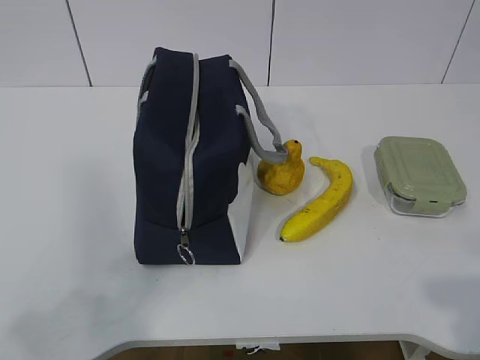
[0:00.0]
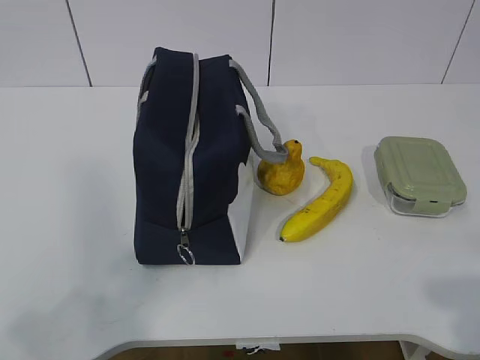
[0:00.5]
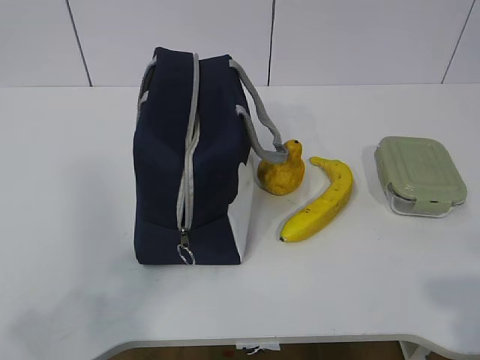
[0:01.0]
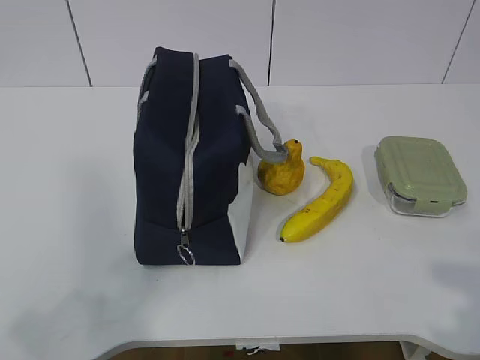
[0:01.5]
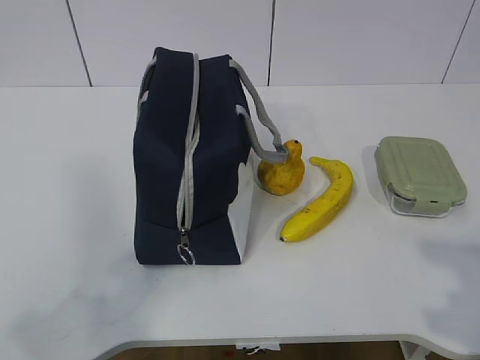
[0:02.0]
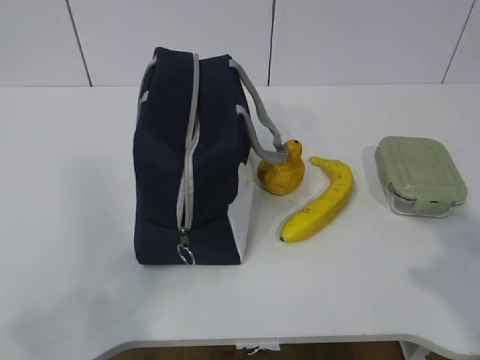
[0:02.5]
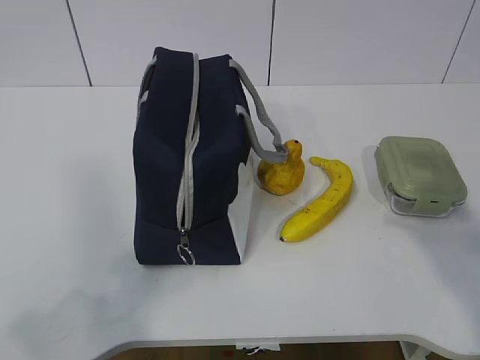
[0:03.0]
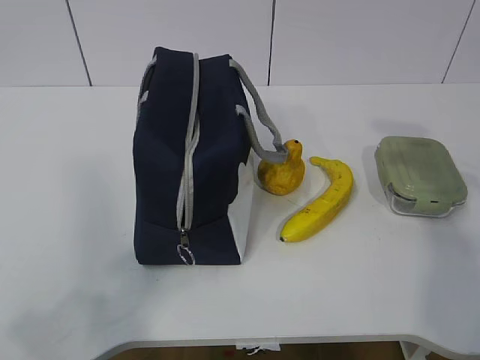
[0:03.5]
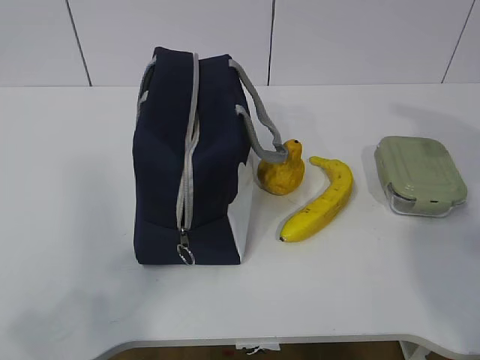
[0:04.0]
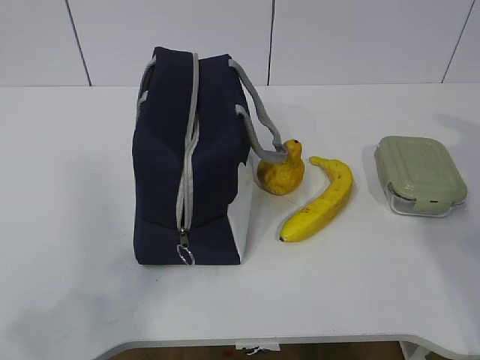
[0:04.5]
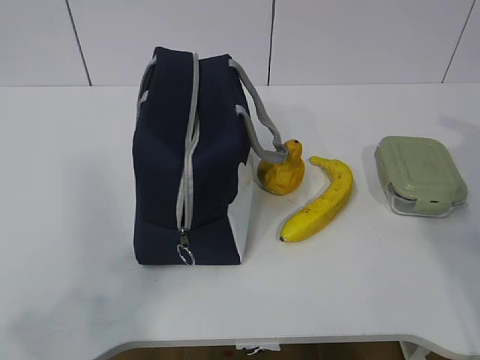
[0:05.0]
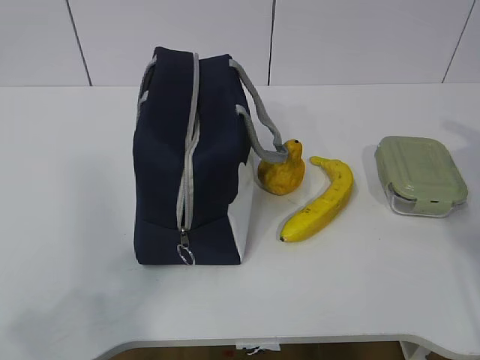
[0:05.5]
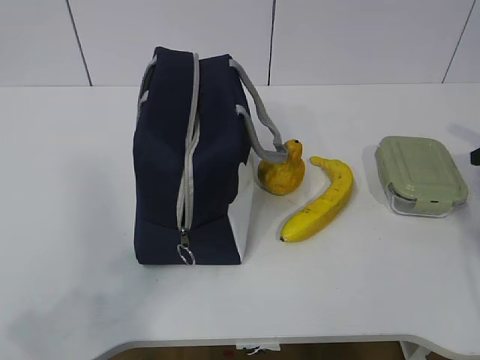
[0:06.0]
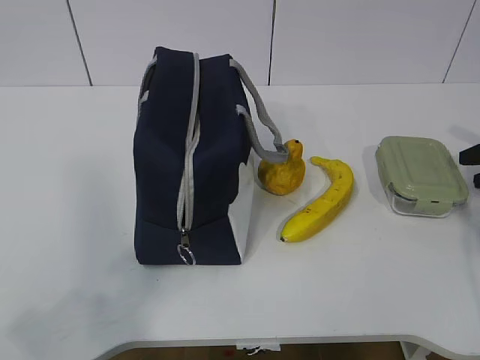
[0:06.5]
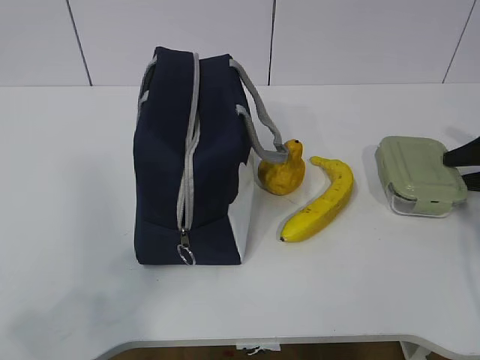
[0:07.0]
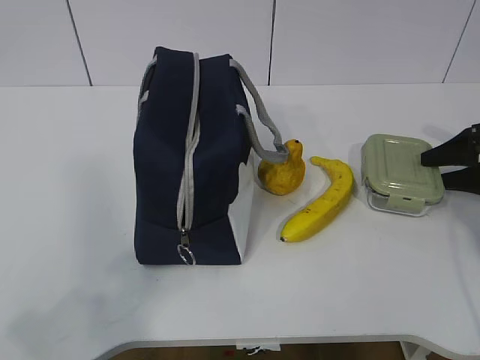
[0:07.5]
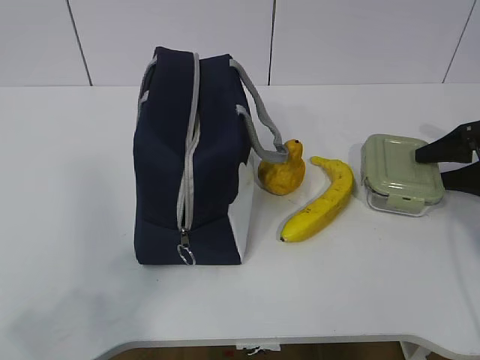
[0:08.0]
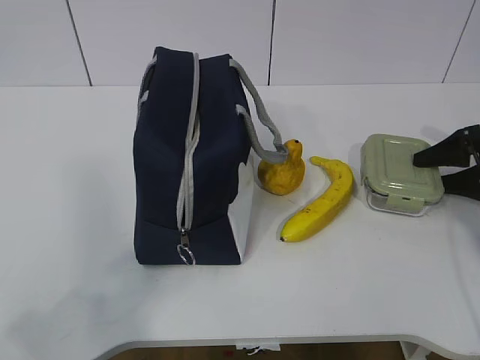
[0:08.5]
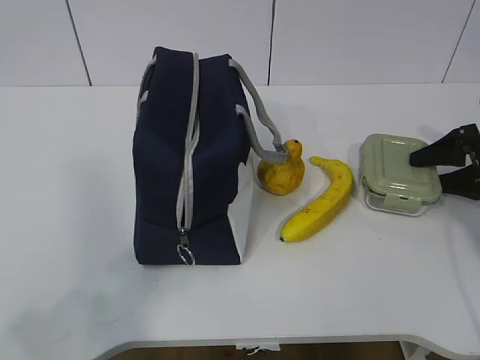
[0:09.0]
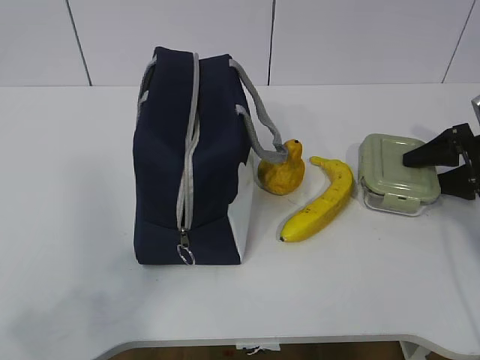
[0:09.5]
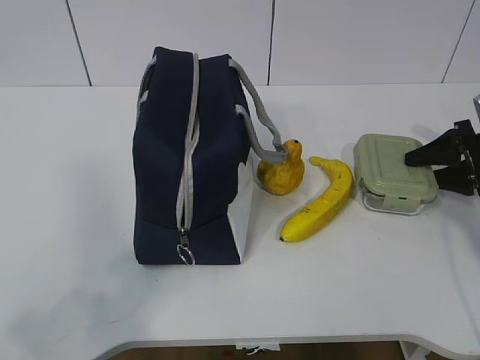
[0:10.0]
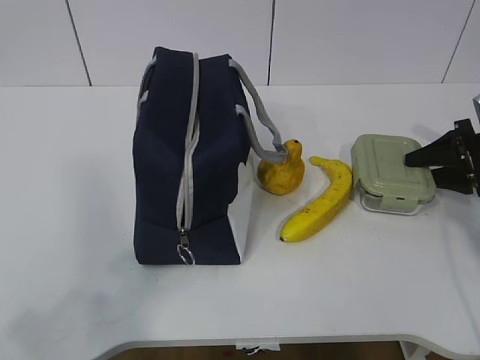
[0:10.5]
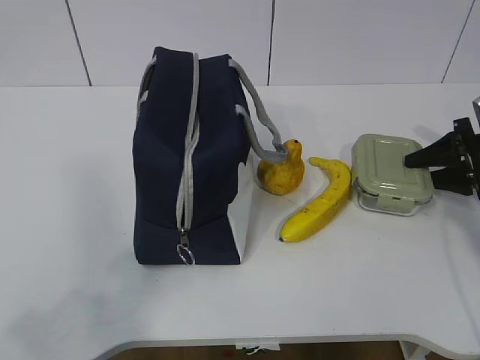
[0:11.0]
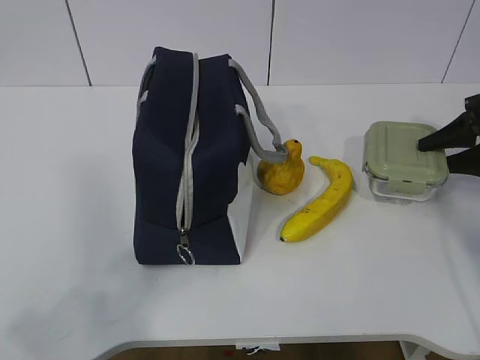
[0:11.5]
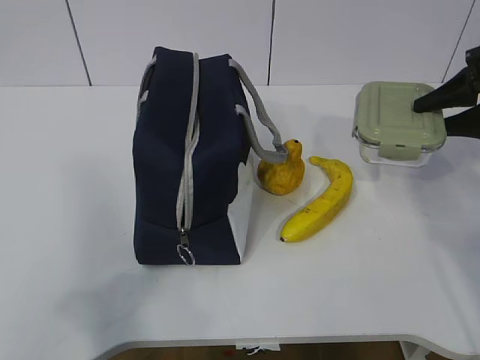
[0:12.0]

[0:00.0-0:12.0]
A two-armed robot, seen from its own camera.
Step, 0:00.0 to 0:07.5: Grasp the box with the right gripper.
0:02.0 to 0:04.0: The right gripper travels forward by roughly 25 cm.
0:04.0 to 0:06.0: The right gripper moves downward, forward and to the right, approximately 20 cm.
0:06.0 to 0:08.0: The right gripper changes place by some 5 cm.
0:08.0 to 0:10.0: There are only small adjustments of the grippers.
0:10.0 to 0:12.0: The right gripper travels upward by about 10 cm.

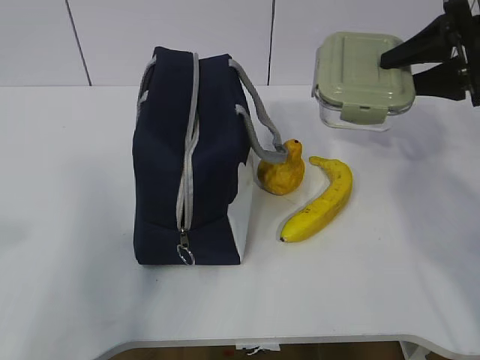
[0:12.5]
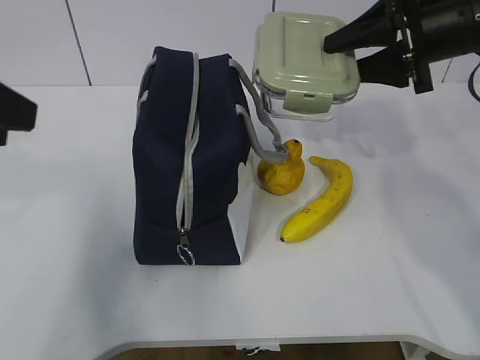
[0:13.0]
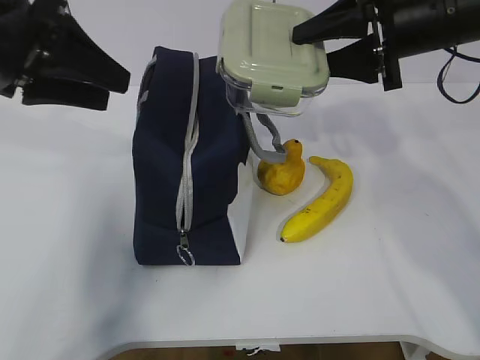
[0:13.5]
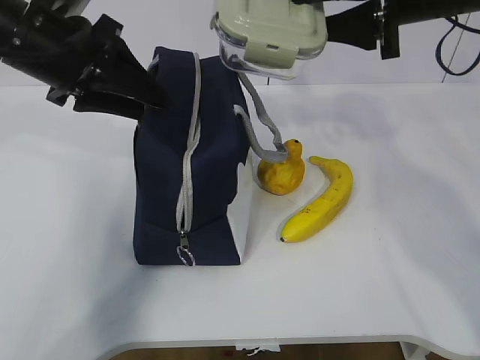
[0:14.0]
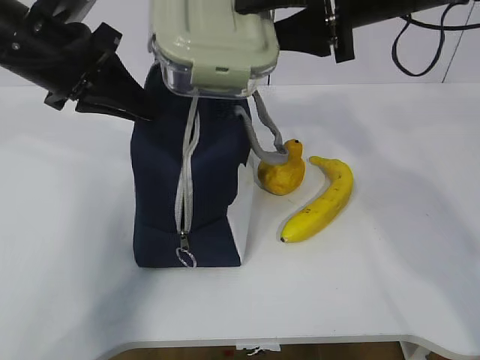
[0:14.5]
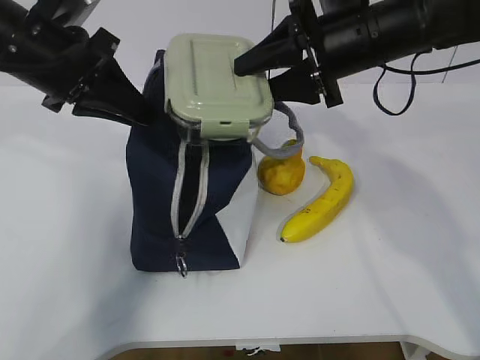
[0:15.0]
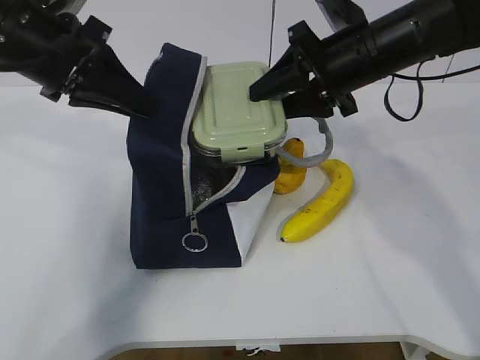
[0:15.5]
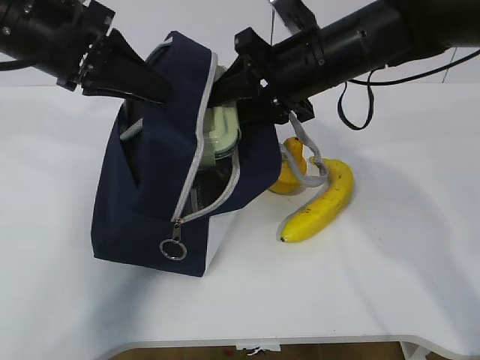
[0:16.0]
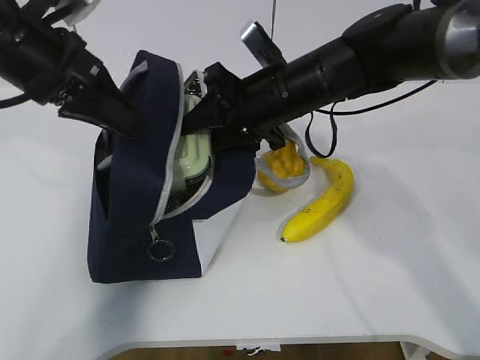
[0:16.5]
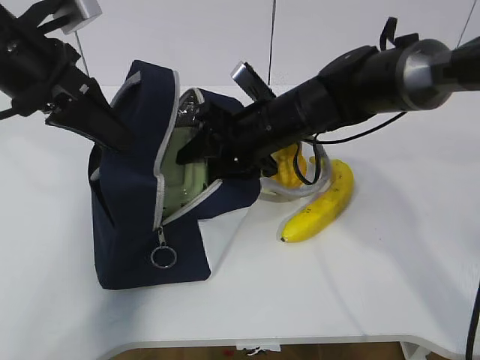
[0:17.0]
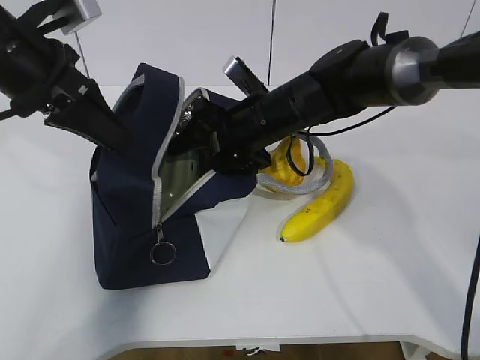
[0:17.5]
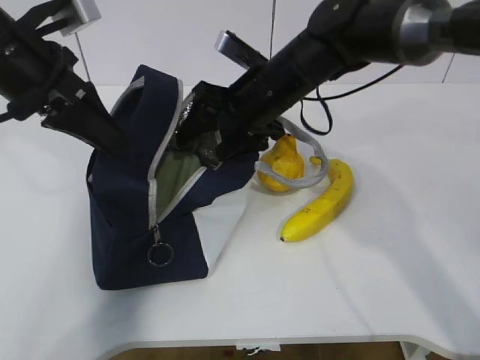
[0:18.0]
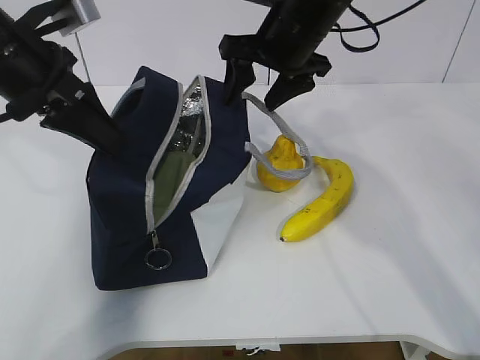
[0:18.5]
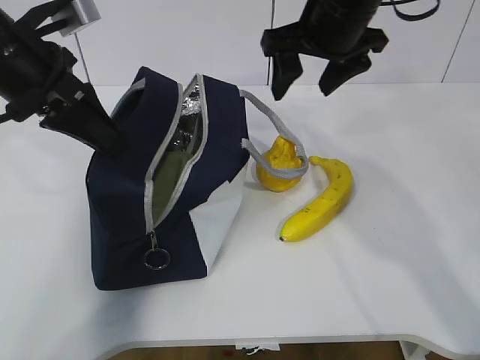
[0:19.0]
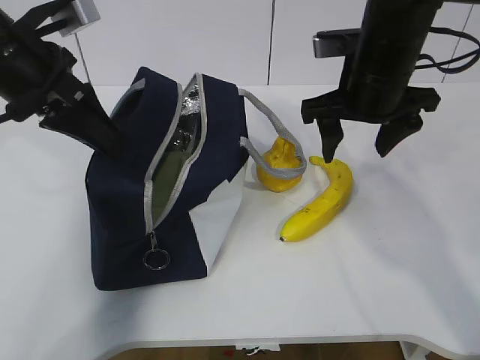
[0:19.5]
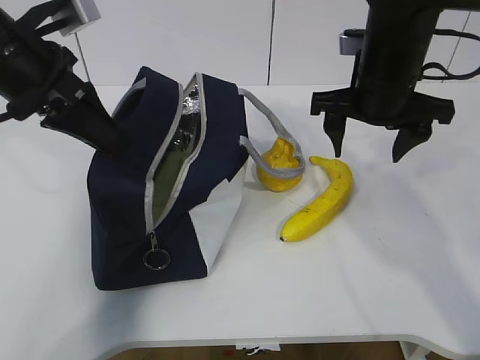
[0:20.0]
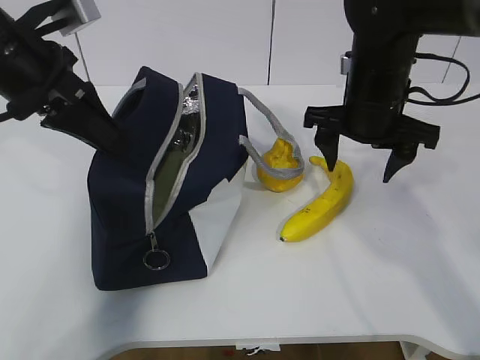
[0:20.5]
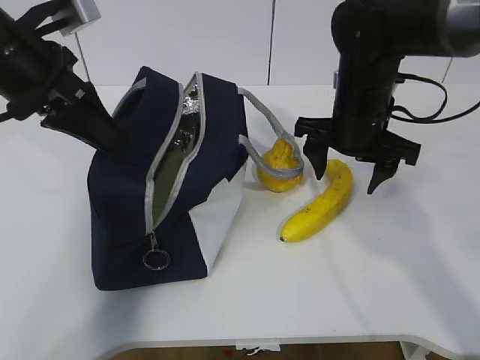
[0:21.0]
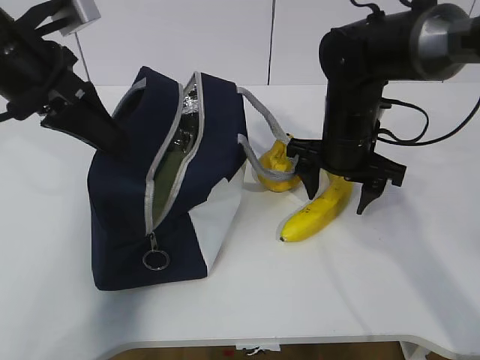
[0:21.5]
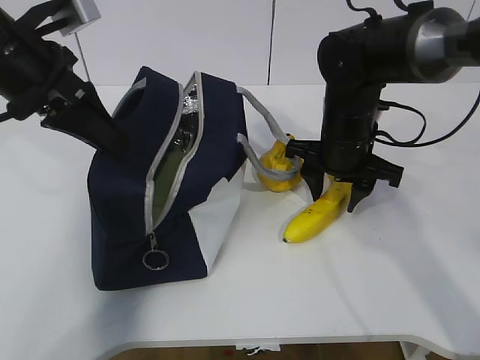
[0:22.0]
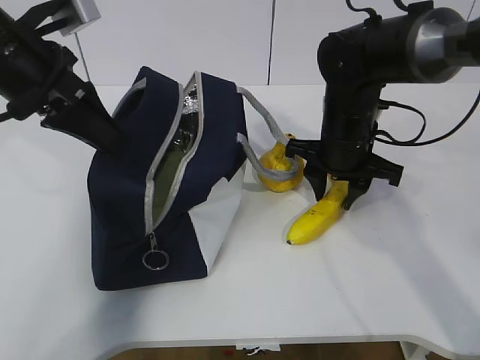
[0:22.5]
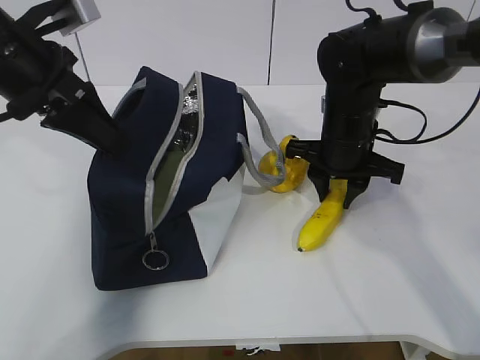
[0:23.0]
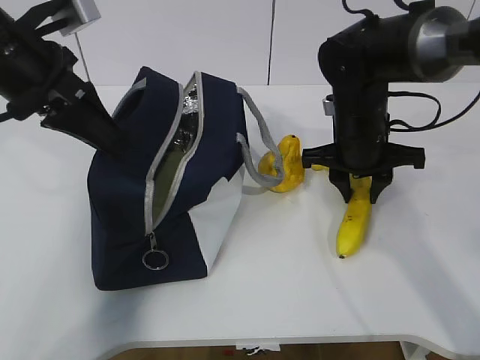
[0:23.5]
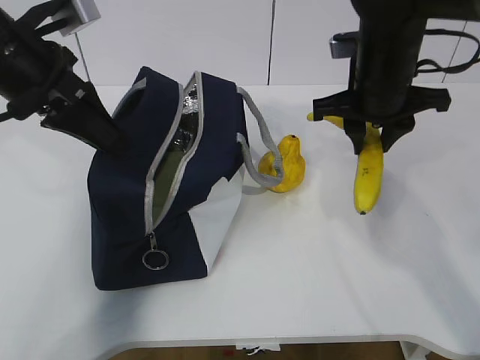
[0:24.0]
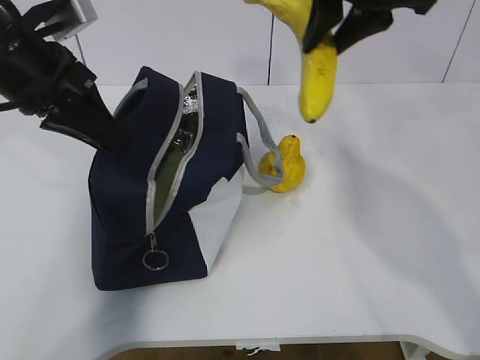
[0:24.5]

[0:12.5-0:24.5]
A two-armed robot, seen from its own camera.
Step, 0:15.0 to 0:18.0: Place the box into the package with the right gripper.
Step, 0:18.5 to 0:22.5: Grasp the banana with the right gripper.
0:12.5 to 0:14.5: The right gripper is displaced to the left by approximately 15 cm; the left gripper goes approximately 25 cm forward, and closes.
0:14.5 to 0:16.5: The right gripper shifts approximately 15 cm downward and to the left.
0:16.5 to 0:18.5: The right gripper shifts some 5 cm upward, and opens.
0:18.5 to 0:20.5: The right gripper heads to the right, downward and backward, covering some 10 cm.
0:20.5 to 0:22.5: The right gripper shifts some 5 cm downward, and closes its fingers.
0:22.5 to 0:24.5: The right gripper moves upward, some 20 cm.

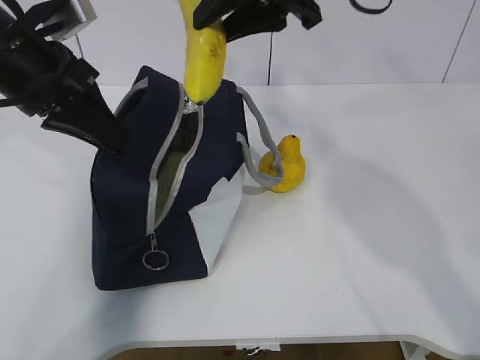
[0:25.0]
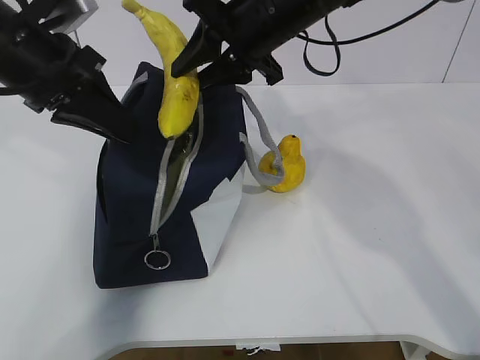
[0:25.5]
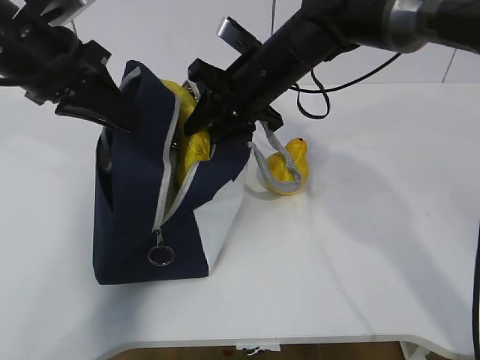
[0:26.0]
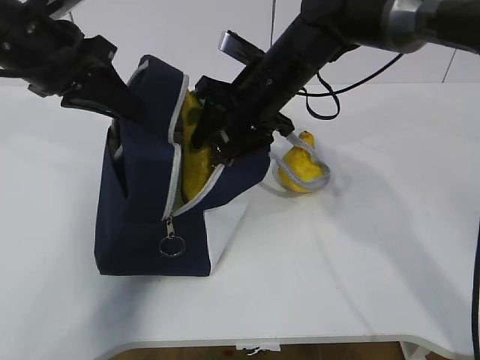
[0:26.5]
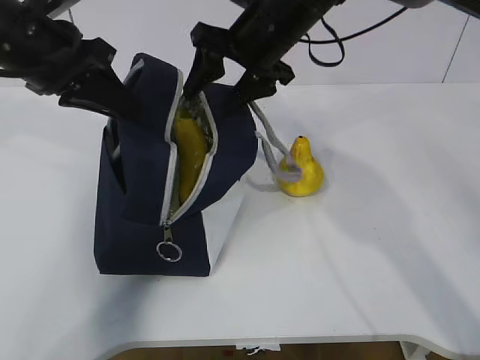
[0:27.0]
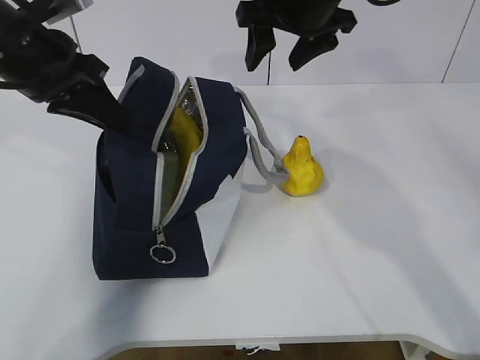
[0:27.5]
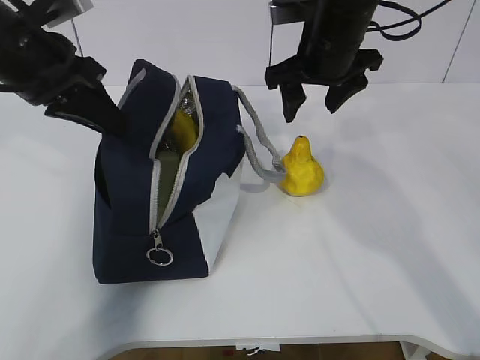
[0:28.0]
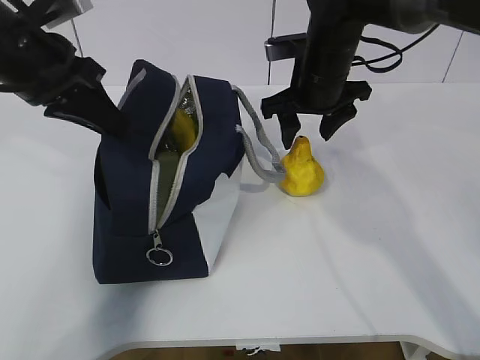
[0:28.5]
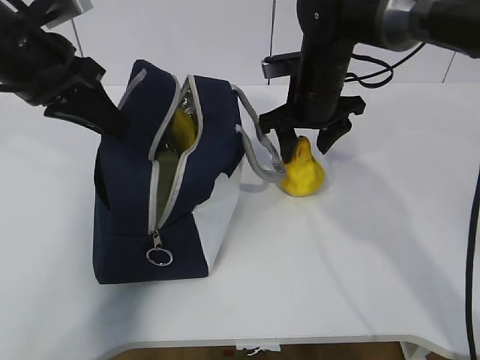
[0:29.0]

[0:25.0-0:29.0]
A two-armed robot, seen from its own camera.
Step, 0:25.0 to 0:27.0: Place the banana into the package with the right gripper.
0:25.0 to 0:27.0: The right gripper moves downward and forward, some 10 cm, and opens.
0:27.0 to 0:29.0: The right gripper goes some 10 cm downward and to the right.
